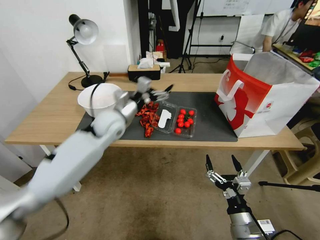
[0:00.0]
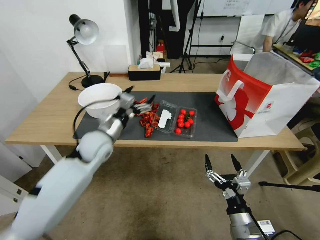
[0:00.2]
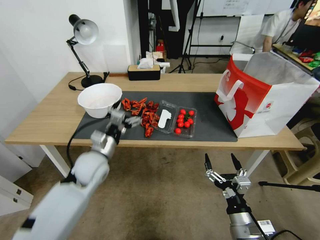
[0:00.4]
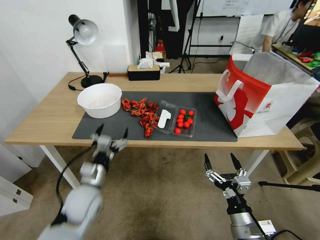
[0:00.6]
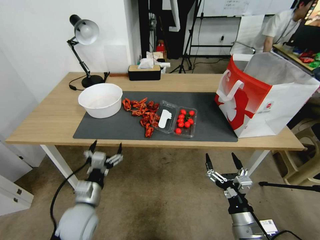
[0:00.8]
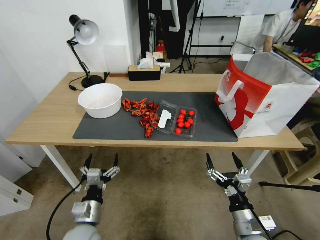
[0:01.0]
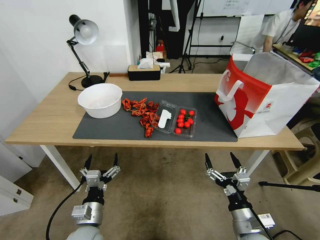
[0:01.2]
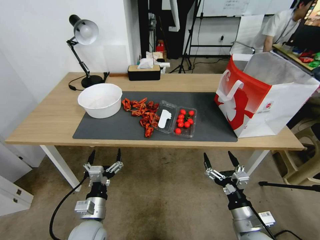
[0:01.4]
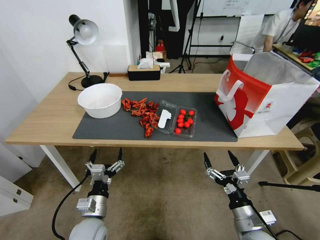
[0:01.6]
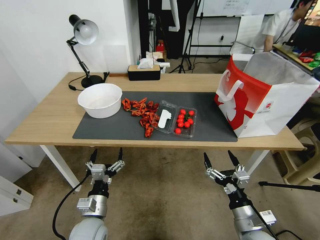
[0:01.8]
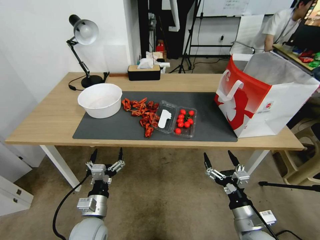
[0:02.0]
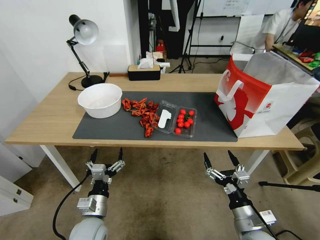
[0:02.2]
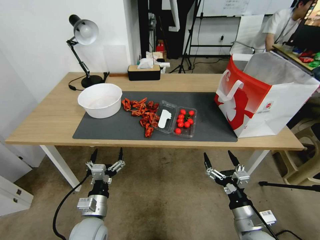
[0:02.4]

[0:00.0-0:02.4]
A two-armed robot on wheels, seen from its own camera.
0:00.0 to 0:01.2: The left gripper travels backward and downward by about 35 cm.
0:01.2 to 0:02.4: The grippers make only small movements.

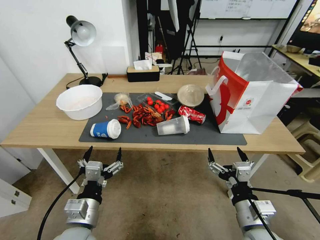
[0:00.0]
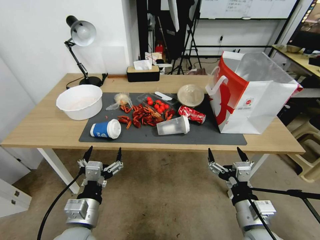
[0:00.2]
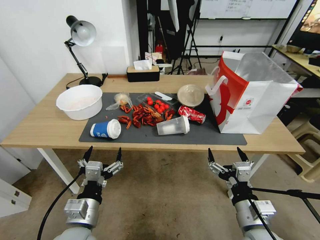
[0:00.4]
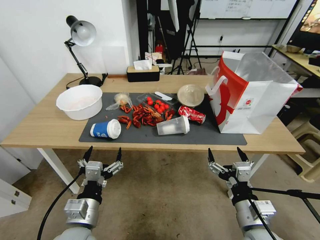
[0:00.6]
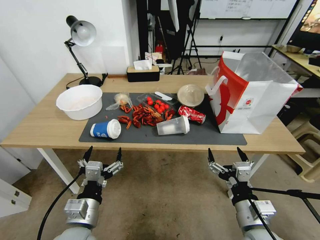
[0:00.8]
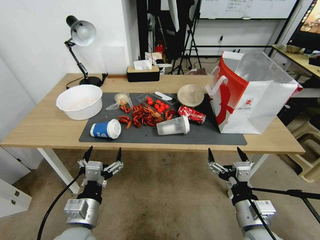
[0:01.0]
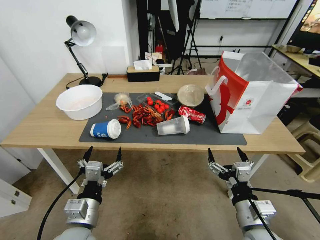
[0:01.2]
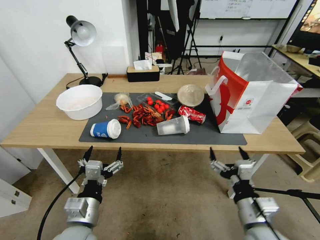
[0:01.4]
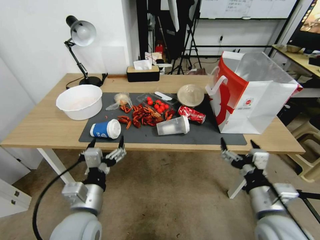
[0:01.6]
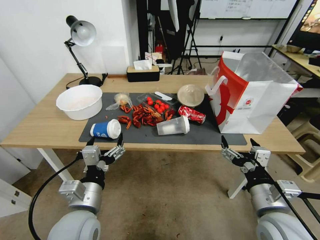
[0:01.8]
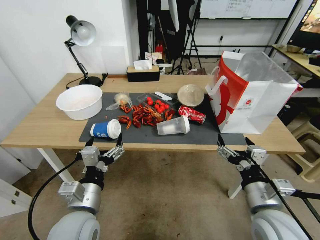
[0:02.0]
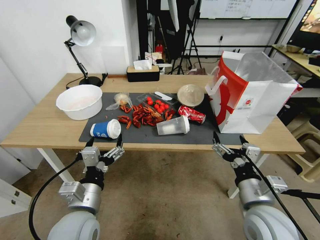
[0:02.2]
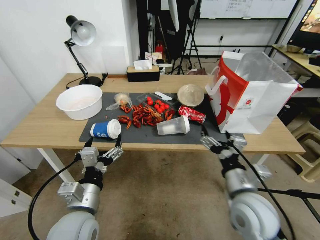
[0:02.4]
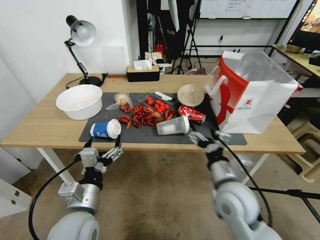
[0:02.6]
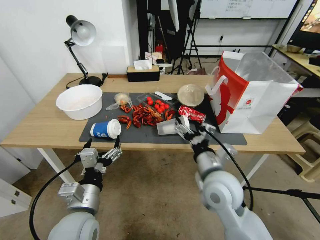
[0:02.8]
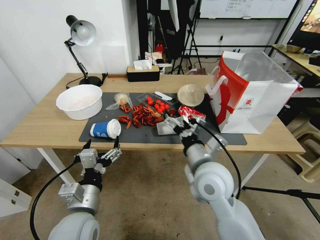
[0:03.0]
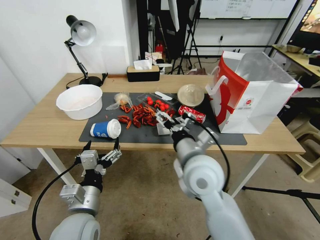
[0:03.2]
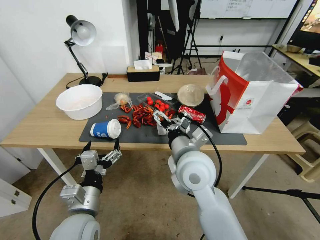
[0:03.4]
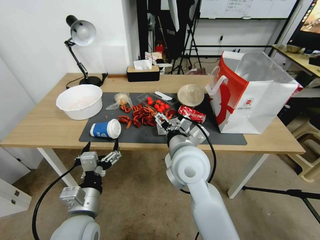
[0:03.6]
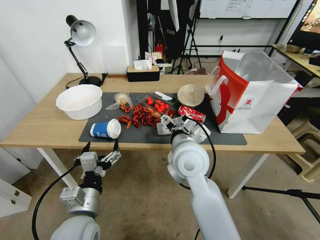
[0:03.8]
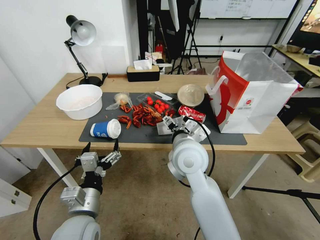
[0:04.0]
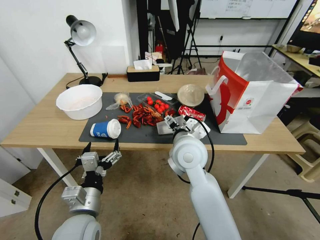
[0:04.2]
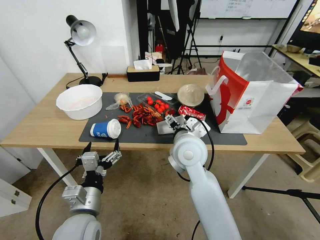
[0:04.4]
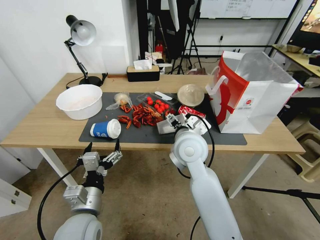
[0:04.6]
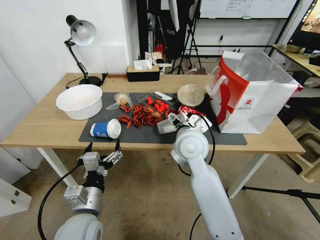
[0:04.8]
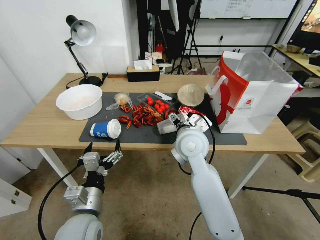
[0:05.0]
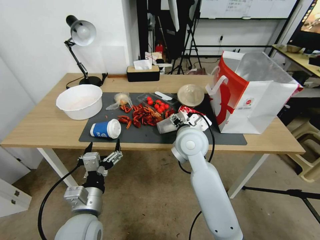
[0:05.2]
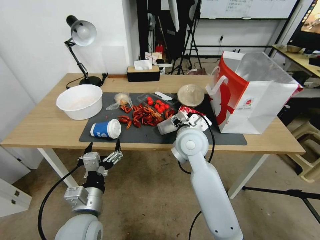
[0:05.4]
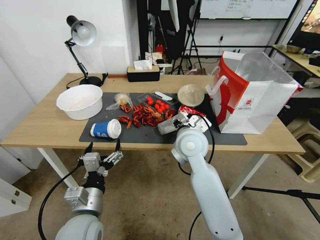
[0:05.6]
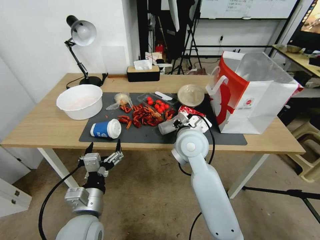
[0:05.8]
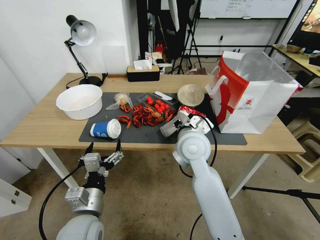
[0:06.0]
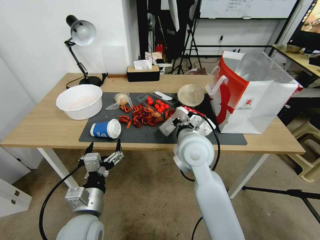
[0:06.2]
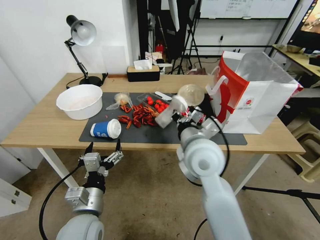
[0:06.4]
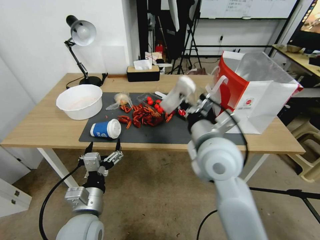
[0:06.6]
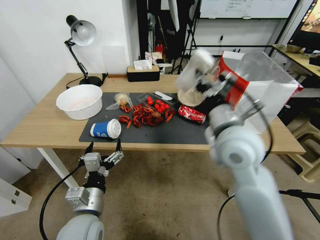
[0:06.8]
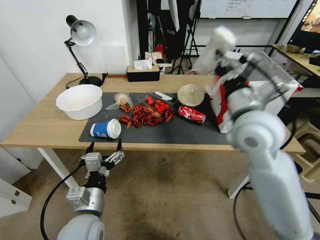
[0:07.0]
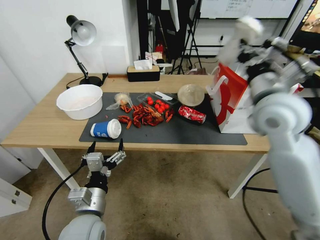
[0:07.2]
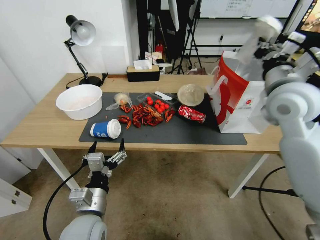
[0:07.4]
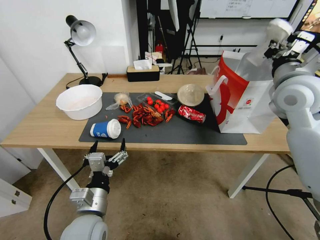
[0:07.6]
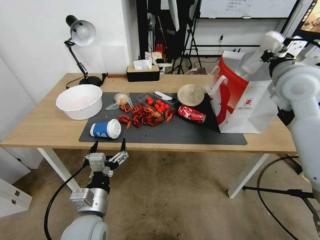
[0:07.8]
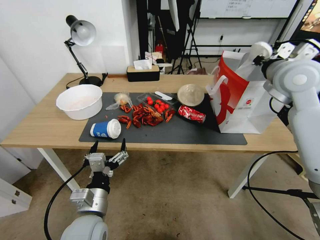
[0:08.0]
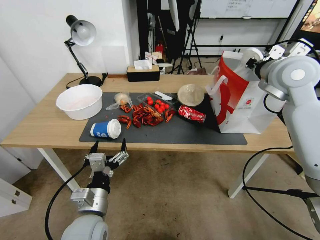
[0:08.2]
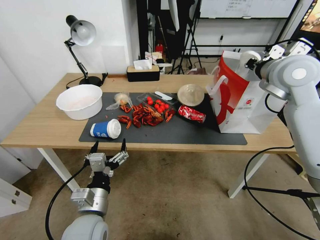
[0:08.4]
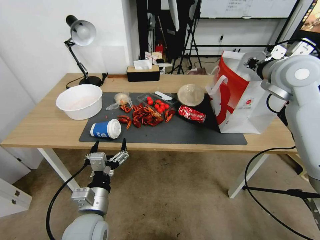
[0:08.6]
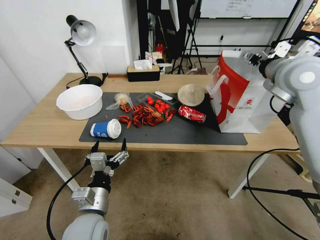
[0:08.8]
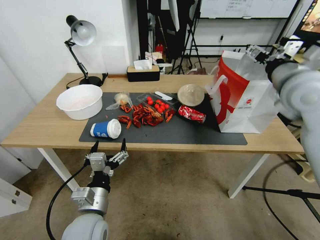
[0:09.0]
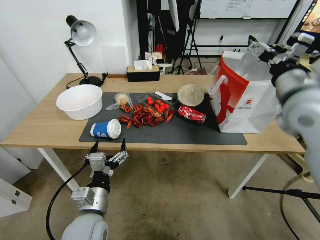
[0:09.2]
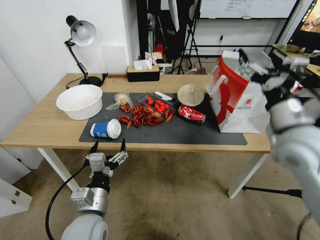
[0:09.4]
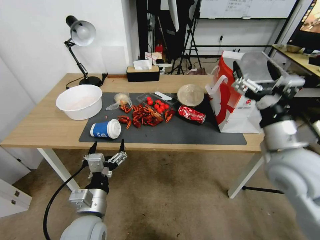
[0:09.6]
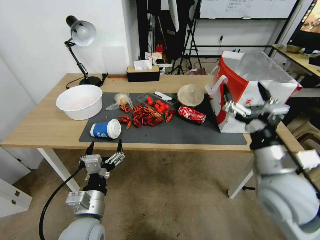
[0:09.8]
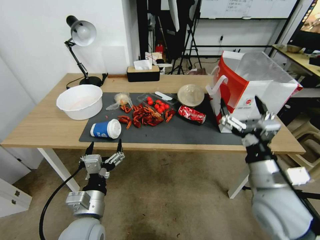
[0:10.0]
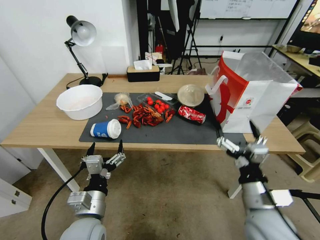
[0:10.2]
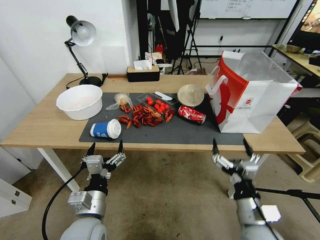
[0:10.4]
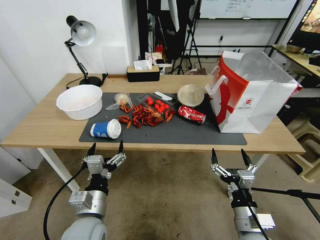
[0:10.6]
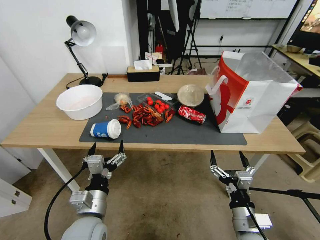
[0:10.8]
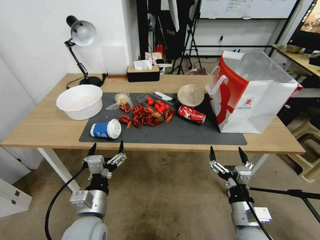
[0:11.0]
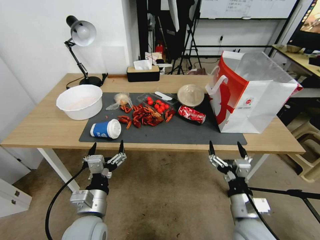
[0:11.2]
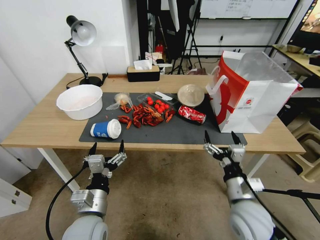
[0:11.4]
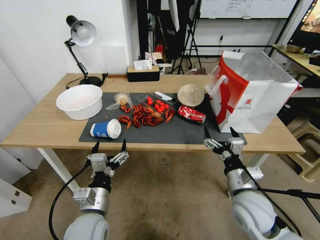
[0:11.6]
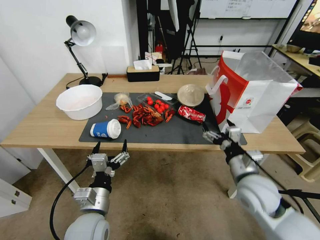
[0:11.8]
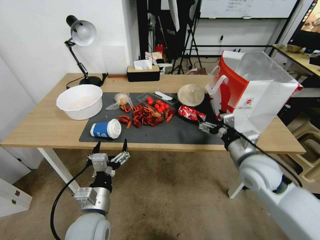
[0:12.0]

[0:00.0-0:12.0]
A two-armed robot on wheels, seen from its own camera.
0:01.6 to 0:03.0: The right gripper heads to the left and forward, covering roughly 15 cm.
0:03.0 to 0:04.4: The right gripper heads forward and to the left, covering approximately 10 cm.
0:04.4 to 0:06.0: The right gripper closes its fingers.
0:06.0 to 0:07.6: The right gripper travels to the right and upward by roughly 30 cm.
0:07.6 to 0:09.0: The right gripper opens up.
0:09.0 to 0:10.4: The right gripper moves downward and backward, some 40 cm.
0:10.4 to 0:12.0: The right gripper is displaced forward and upward by approximately 15 cm.

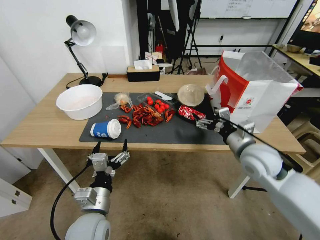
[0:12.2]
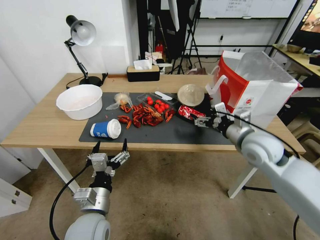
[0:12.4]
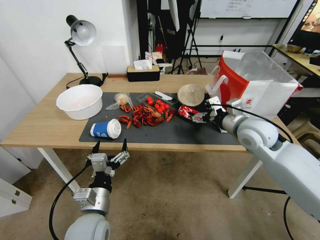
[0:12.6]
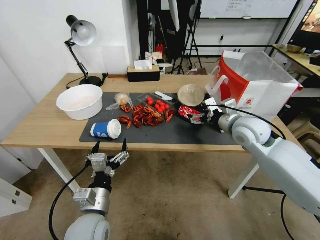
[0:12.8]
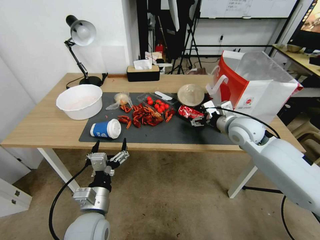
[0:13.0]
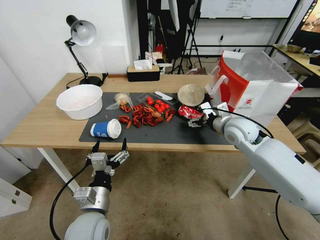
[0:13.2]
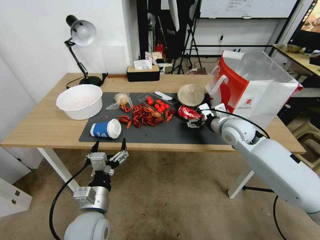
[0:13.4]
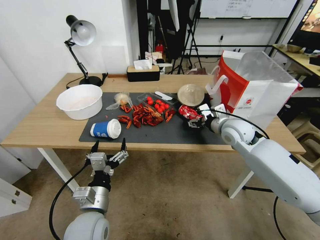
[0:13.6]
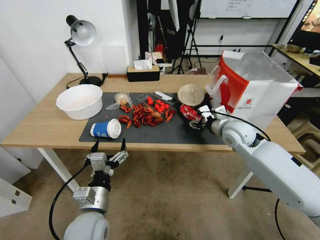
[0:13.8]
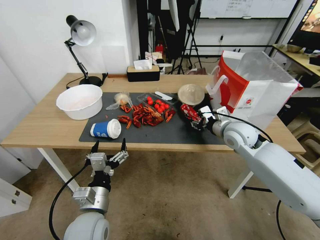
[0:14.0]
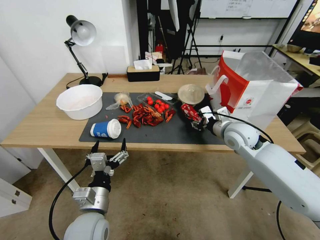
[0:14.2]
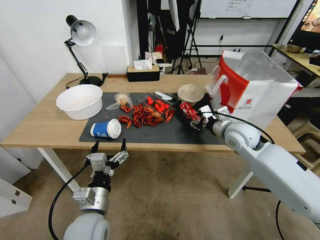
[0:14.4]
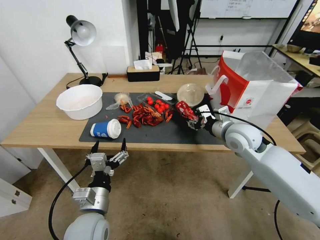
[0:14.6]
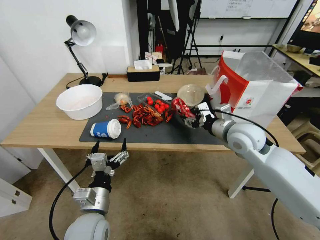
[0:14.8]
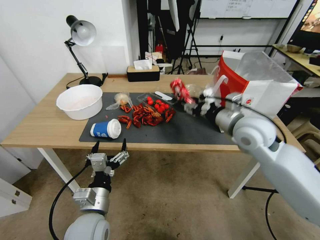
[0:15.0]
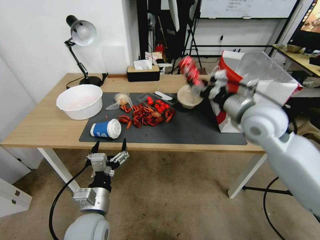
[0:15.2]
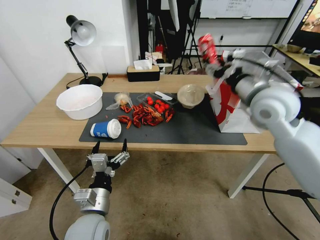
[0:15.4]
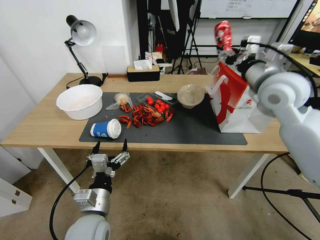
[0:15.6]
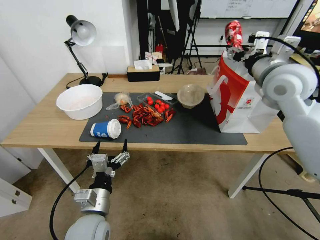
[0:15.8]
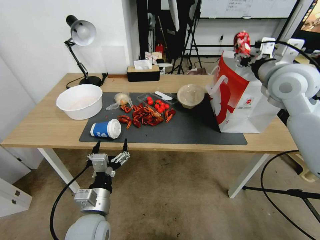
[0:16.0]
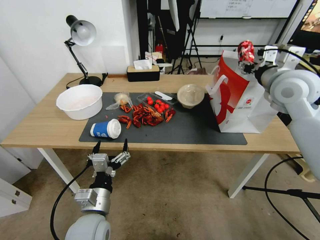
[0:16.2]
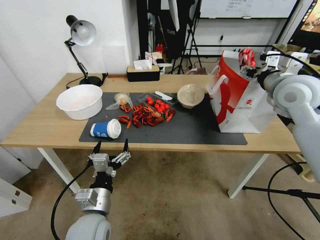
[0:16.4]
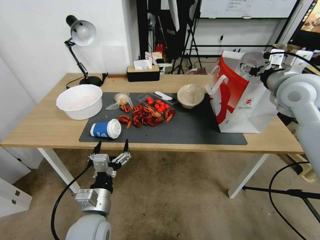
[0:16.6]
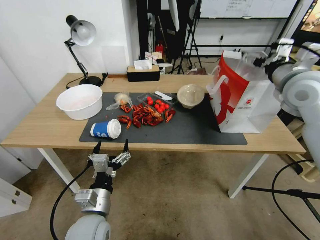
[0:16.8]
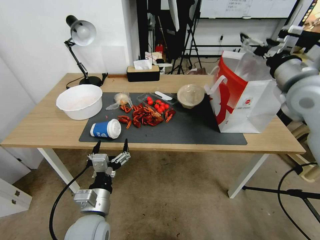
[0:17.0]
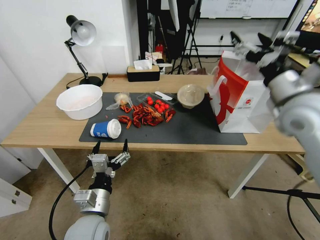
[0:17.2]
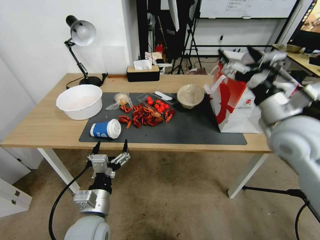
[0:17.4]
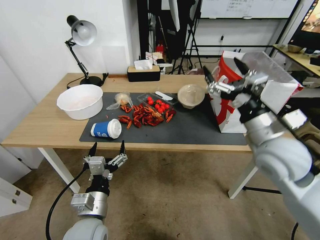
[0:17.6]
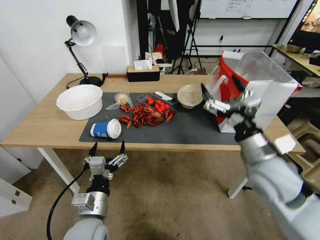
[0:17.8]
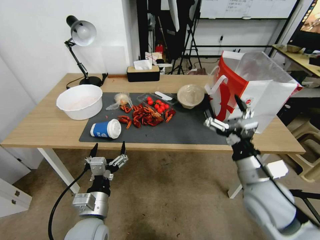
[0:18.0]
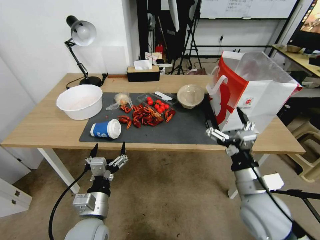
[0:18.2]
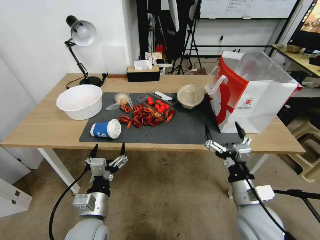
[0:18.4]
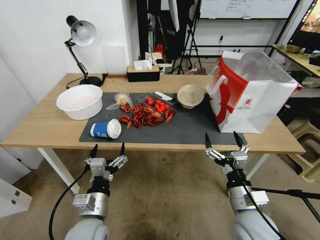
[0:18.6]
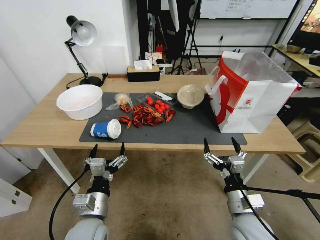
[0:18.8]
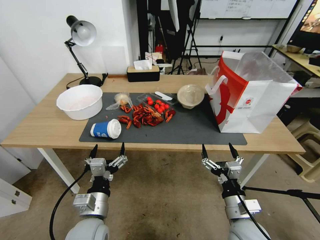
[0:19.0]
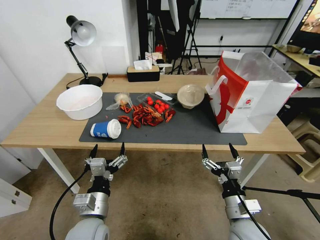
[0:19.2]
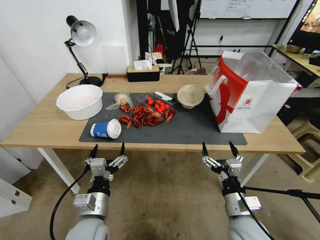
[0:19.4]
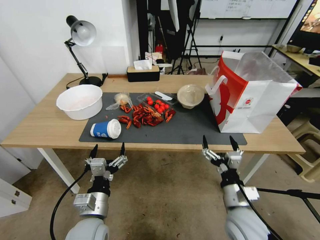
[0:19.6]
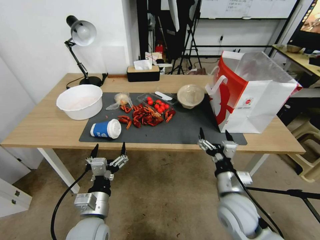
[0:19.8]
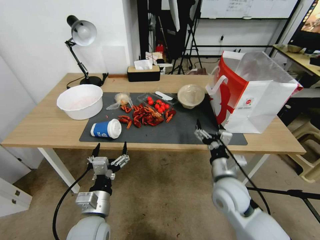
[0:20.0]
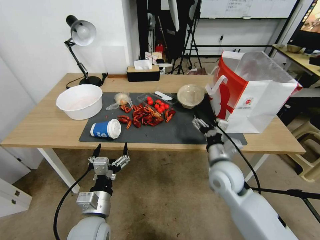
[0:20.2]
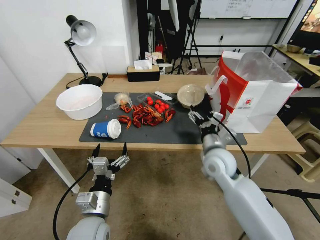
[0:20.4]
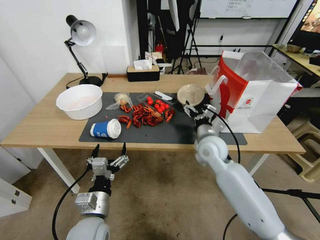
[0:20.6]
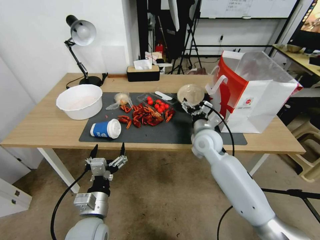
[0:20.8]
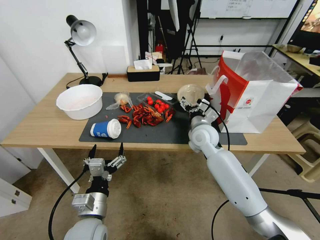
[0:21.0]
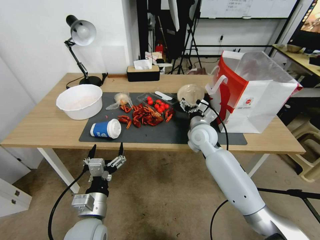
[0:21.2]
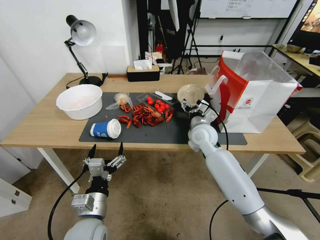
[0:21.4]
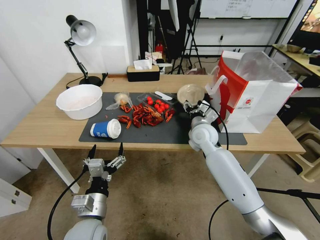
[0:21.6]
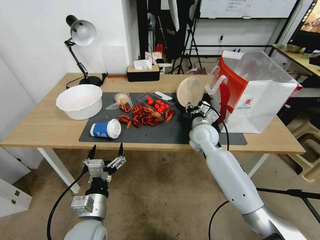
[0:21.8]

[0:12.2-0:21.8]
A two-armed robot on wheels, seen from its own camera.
0:12.2 to 0:13.8: The right gripper shifts approximately 10 cm forward, and closes.
0:13.8 to 0:15.4: The right gripper goes some 15 cm upward.
0:15.4 to 0:17.0: The right gripper moves to the right, roughly 5 cm, and opens its fingers.
0:17.0 to 0:18.6: The right gripper shifts approximately 35 cm downward and backward.
0:18.6 to 0:20.2: The right gripper goes approximately 10 cm forward.
0:20.2 to 0:21.8: The right gripper travels forward by some 15 cm, and closes its fingers.
